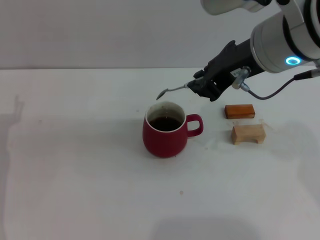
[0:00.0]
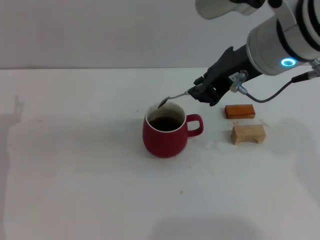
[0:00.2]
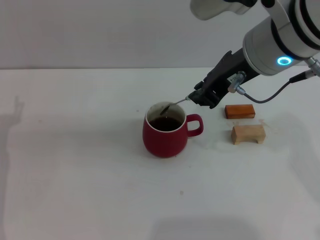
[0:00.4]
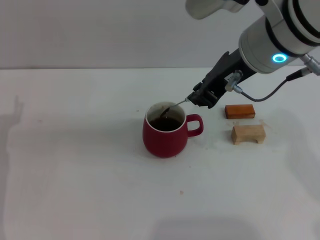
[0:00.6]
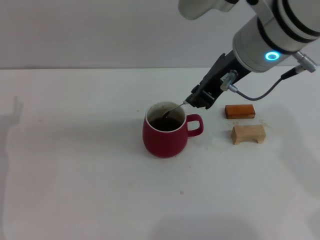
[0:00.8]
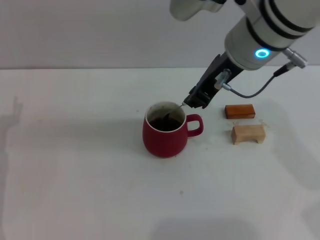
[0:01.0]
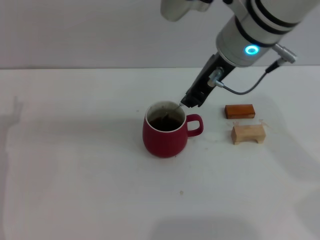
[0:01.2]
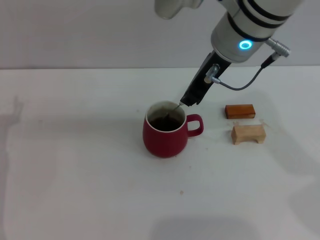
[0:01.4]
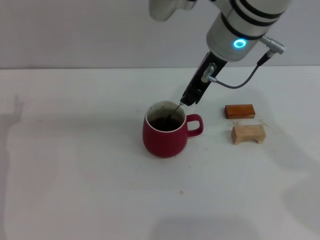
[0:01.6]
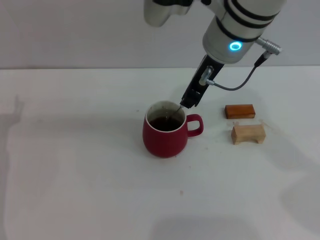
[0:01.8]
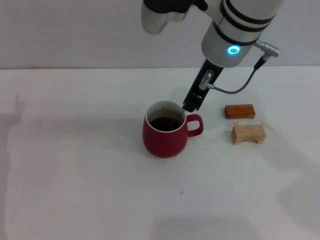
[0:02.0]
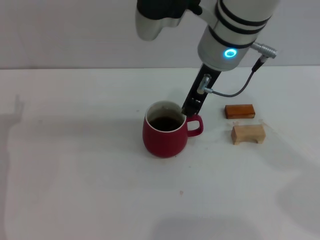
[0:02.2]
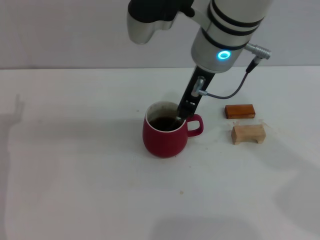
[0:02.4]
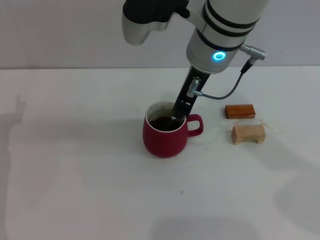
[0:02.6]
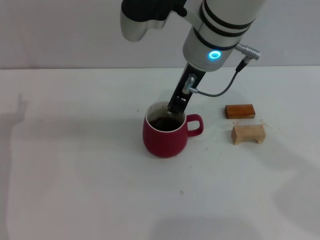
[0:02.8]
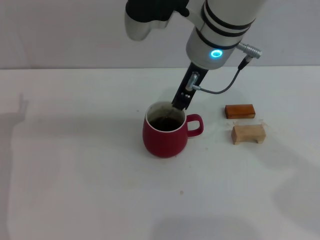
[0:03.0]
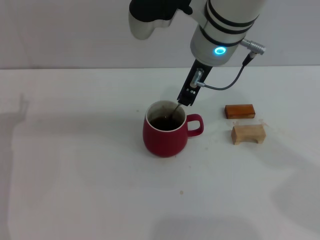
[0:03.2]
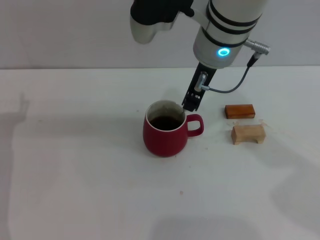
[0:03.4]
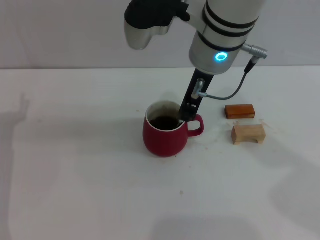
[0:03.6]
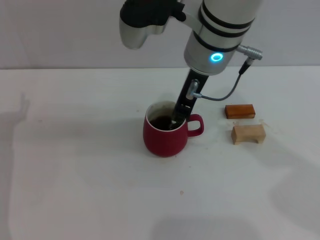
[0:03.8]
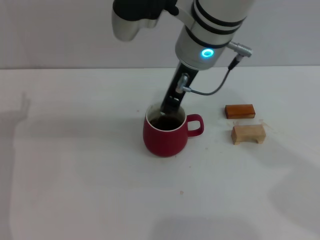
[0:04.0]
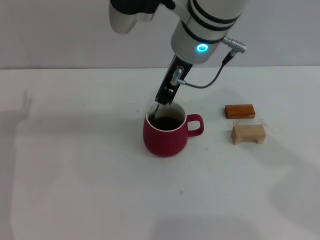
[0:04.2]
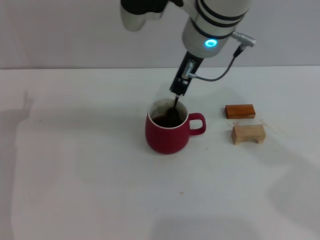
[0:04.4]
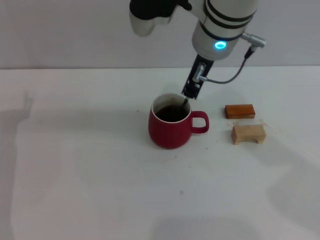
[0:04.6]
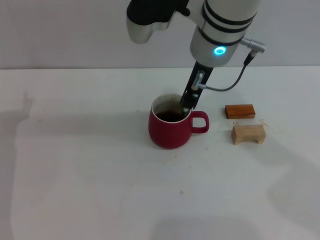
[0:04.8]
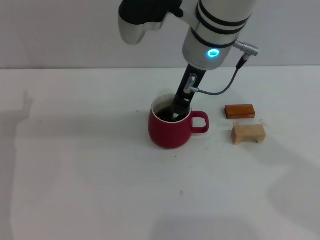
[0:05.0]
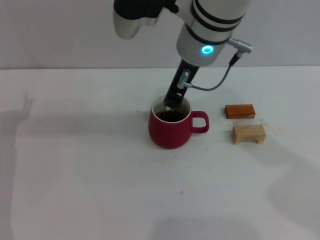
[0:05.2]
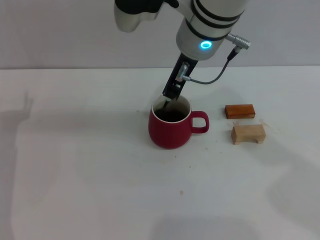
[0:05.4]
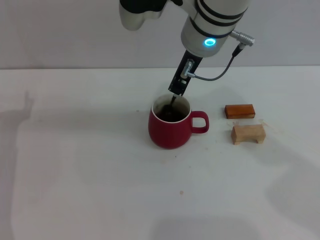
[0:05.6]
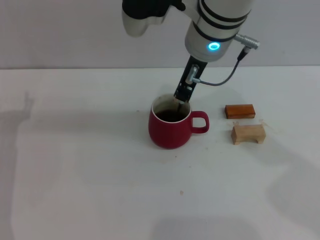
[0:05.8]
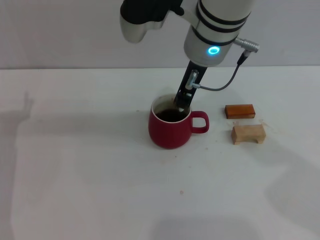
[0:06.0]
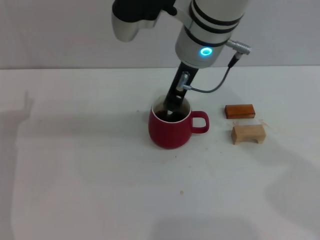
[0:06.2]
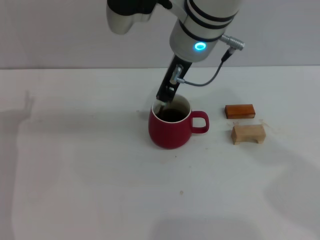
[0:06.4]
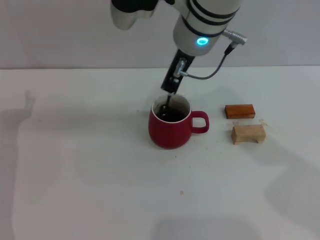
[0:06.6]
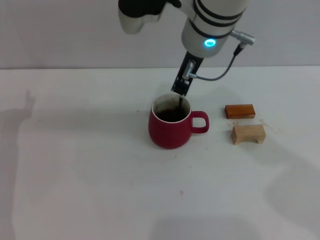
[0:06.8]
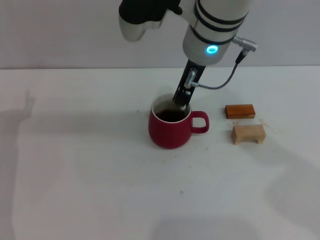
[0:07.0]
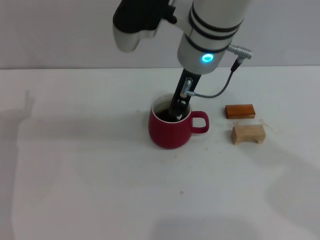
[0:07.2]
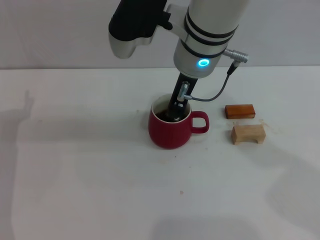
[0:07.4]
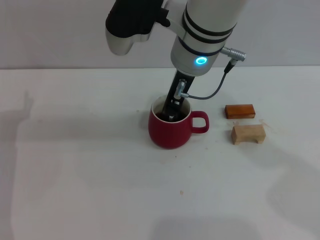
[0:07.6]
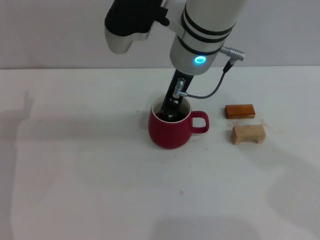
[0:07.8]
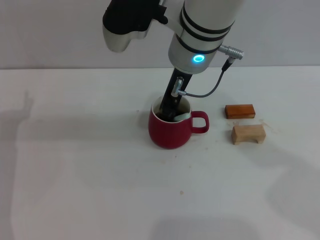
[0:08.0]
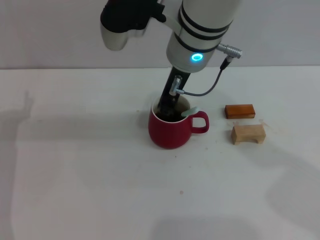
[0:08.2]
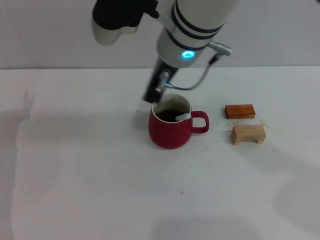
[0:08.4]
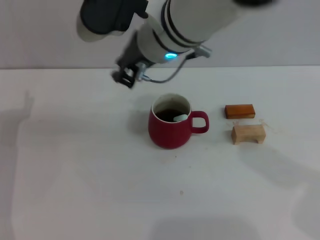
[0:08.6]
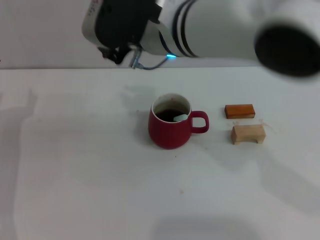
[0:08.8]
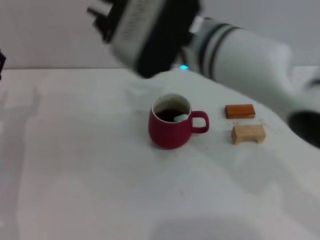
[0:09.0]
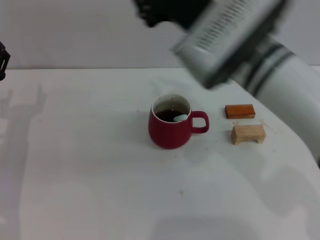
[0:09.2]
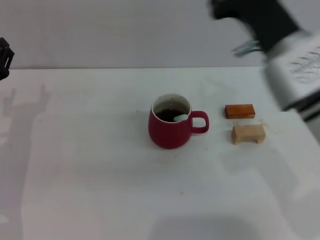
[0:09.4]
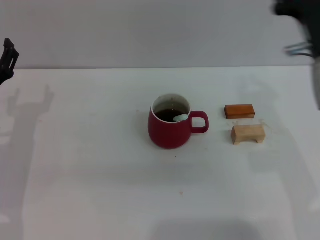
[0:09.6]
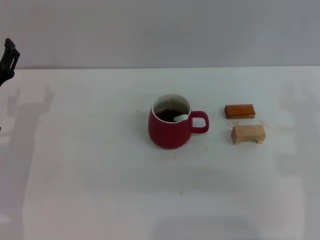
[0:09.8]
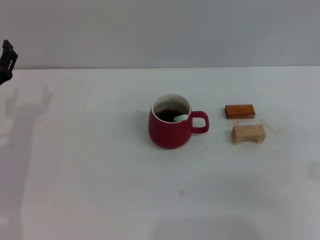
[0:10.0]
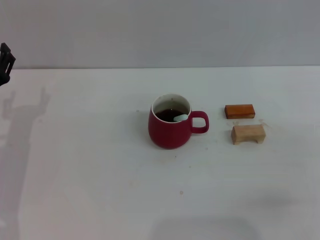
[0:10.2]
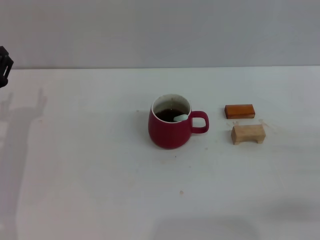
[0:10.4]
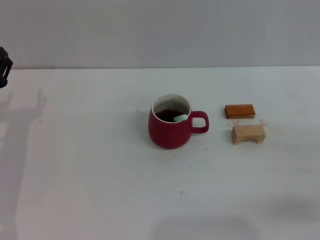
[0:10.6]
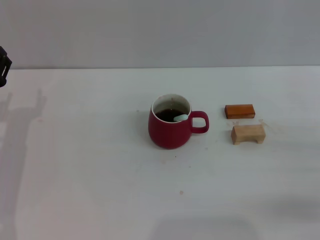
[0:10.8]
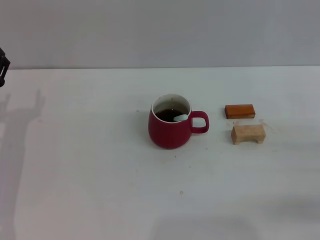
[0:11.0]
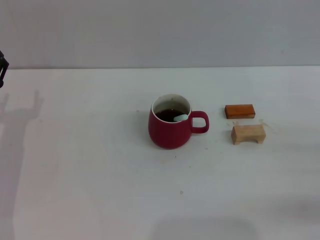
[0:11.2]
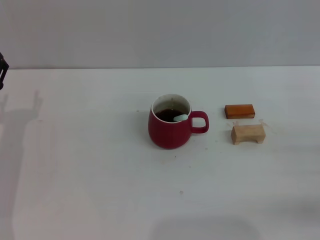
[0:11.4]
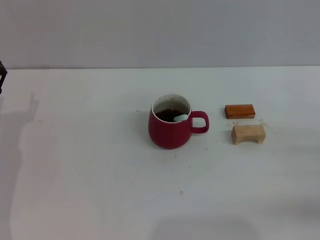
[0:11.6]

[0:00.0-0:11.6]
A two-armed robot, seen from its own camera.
Task of the whole recording: Move the red cup to the center, lift the blue spoon, stir it three times in the cup, and put the spoon into the cup.
Step, 0:00.0 to 0:08.6: Stir the coffee in the cup with the right gripper.
0:00.0 to 0:01.4: The right gripper moves forward, about 5 cm.
0:01.4 to 0:07.2: The grippers stay close to where they were, moving slightly.
0:08.8 to 0:10.2: The right gripper is displaced to the right and downward by some 35 cm.
